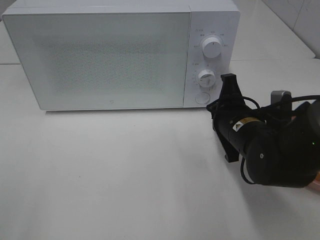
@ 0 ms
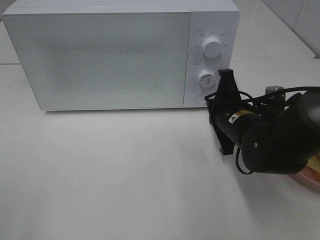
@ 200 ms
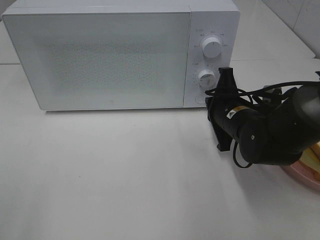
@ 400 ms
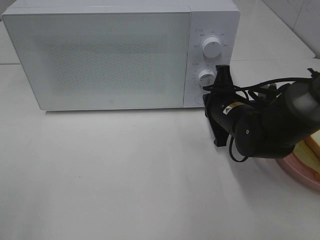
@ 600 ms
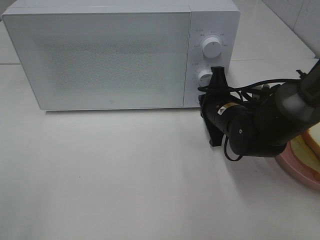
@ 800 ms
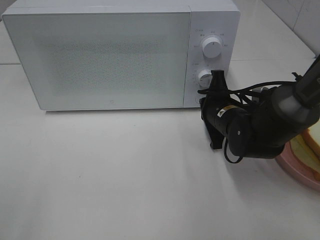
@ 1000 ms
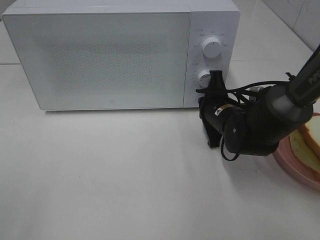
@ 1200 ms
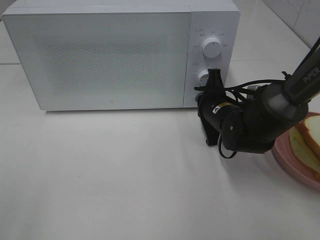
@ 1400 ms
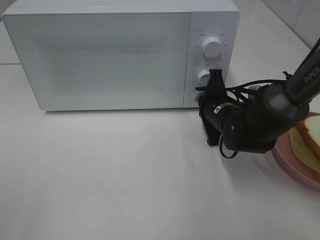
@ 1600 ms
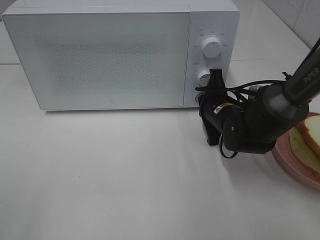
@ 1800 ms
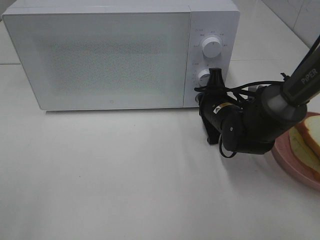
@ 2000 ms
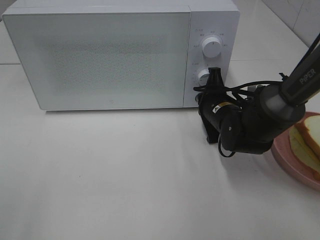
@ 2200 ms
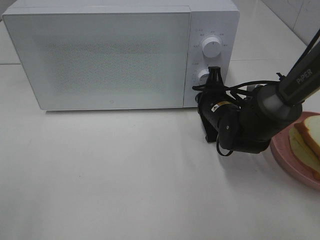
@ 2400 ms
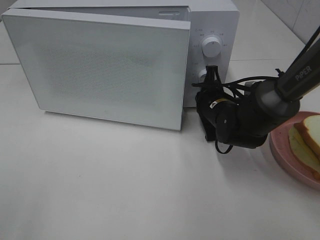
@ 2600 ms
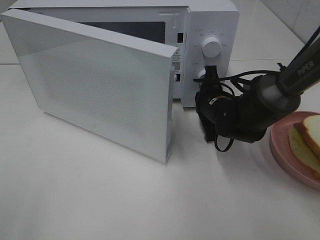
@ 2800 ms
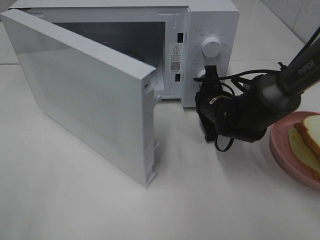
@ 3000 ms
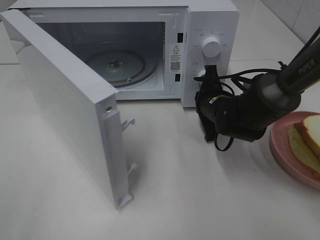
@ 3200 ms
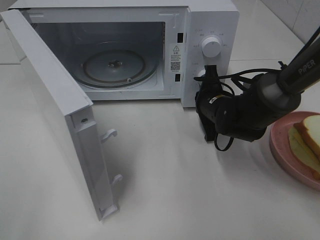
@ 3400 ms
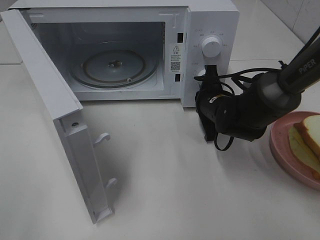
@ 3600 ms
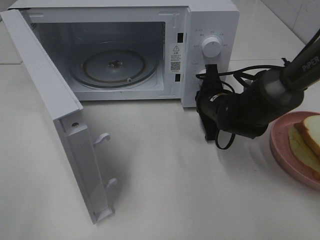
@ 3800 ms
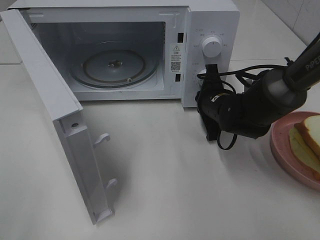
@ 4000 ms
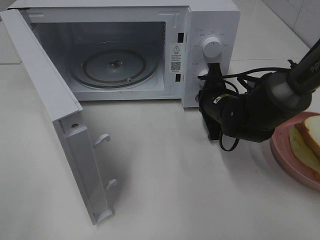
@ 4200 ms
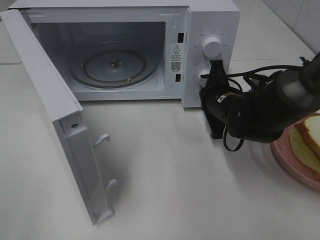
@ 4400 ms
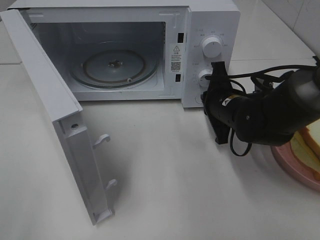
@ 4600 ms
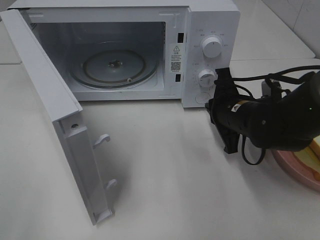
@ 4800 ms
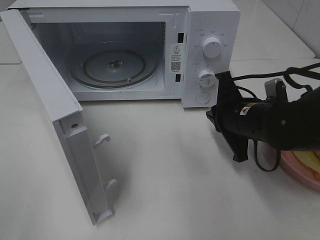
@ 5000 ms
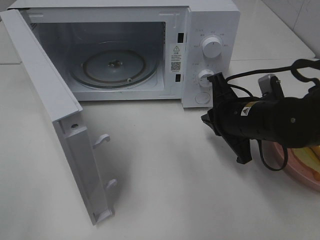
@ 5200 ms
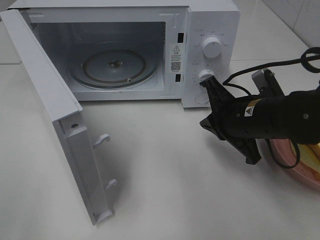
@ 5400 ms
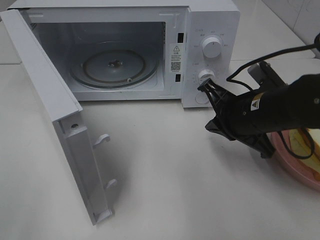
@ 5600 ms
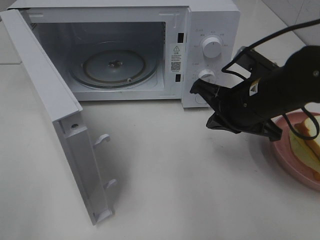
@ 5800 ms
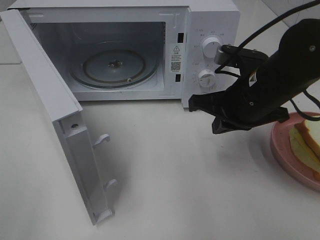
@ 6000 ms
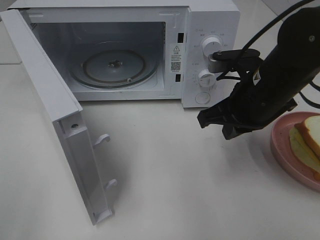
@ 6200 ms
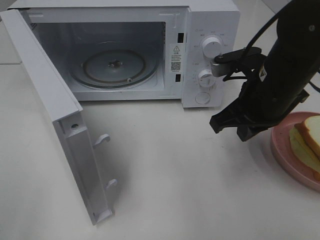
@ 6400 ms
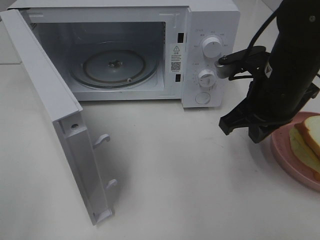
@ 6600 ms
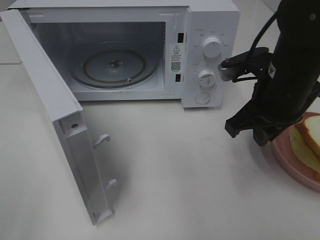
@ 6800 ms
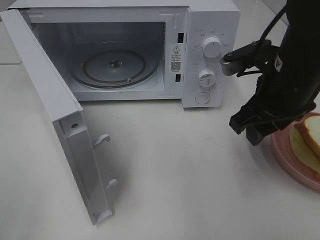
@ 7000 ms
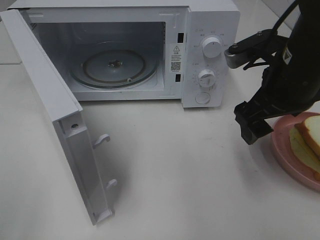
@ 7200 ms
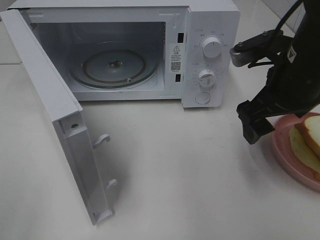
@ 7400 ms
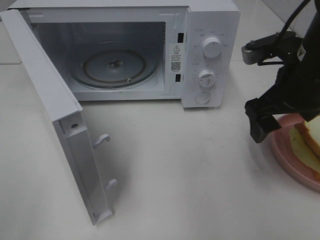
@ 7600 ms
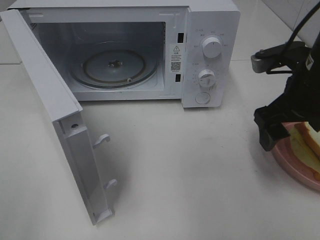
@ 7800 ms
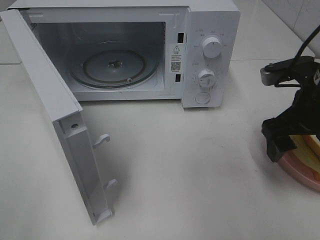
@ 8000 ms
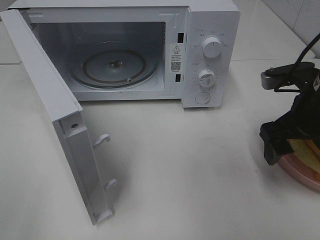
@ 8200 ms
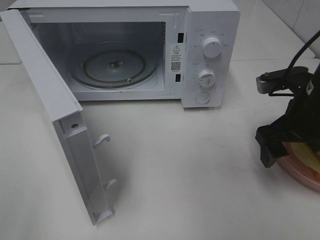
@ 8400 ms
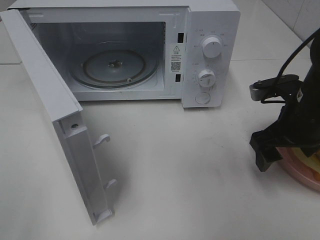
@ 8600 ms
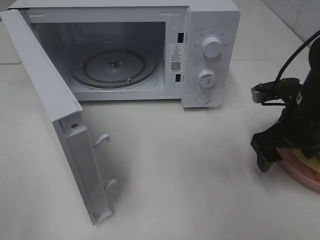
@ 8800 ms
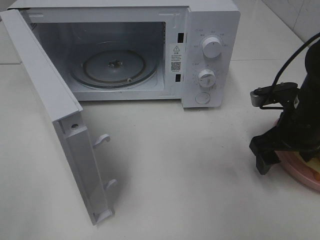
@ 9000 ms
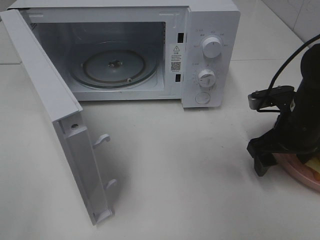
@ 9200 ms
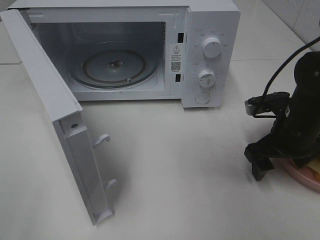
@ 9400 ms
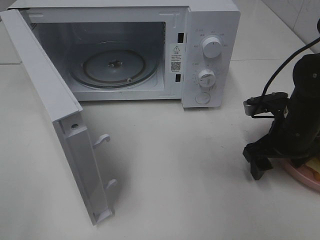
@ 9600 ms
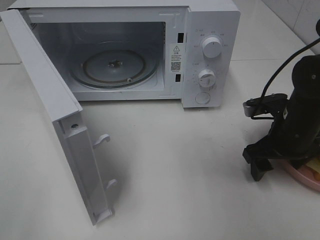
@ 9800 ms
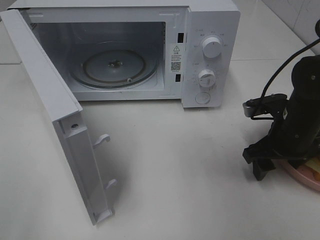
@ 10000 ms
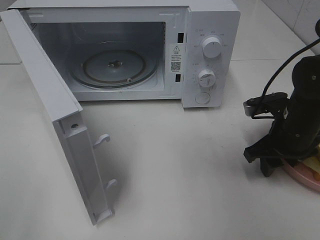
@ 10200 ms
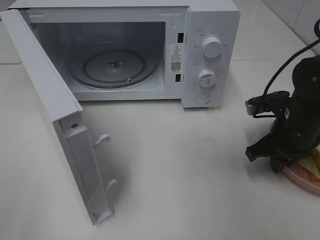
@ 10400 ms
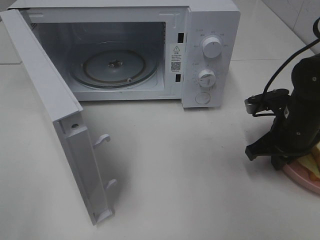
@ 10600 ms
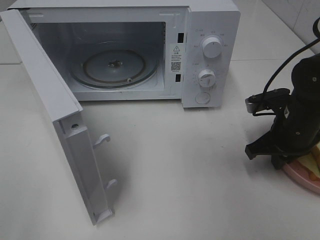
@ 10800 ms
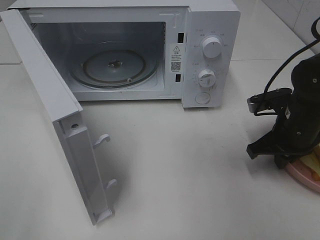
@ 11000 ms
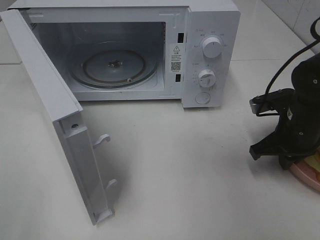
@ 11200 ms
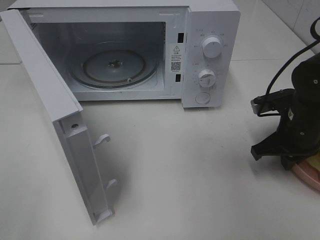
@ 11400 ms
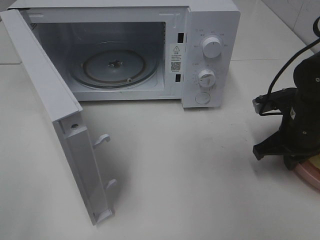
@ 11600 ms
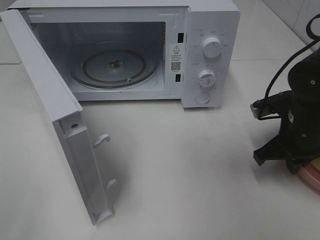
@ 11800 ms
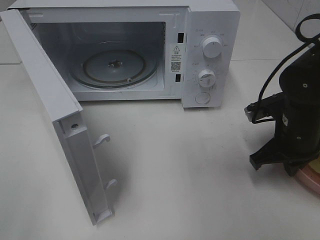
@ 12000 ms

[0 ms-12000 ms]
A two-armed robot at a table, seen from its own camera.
Task of the whole recording: Heat Sandwich.
Step, 0 ms to 4600 ms: Right hand: press the switch.
Step, 4800 ms to 10800 ms: Right hand: grab the plate with the sandwich.
0 ms to 1600 ms: The right gripper travels forward by roughly 10 cm.
4400 ms to 6000 ms: The right gripper moves upward and backward, some 10 cm.
6000 ms to 7600 ms: The right gripper goes roughly 5 cm to the right, and opens its fingers.
7600 ms to 9000 ms: The right gripper travels downward by approximately 10 cm.
9000 ms to 10400 ms: The right gripper closes up.
10400 ms to 12000 ms: The grippers make only small movements.

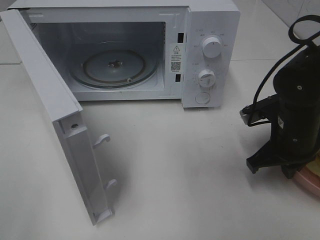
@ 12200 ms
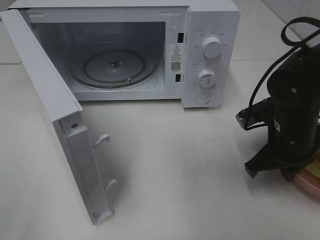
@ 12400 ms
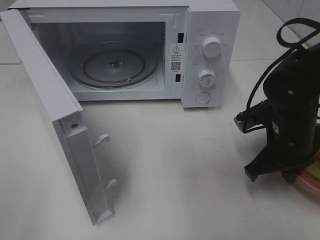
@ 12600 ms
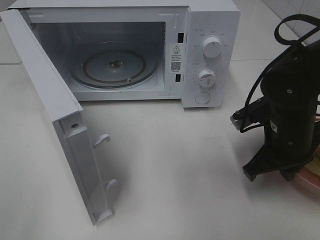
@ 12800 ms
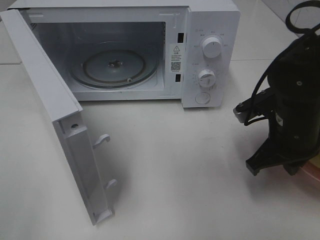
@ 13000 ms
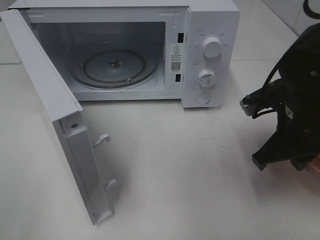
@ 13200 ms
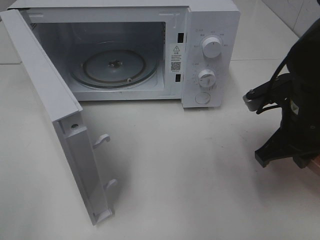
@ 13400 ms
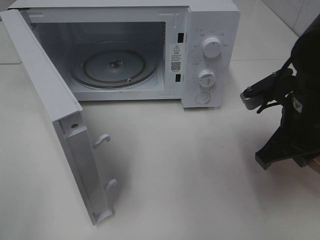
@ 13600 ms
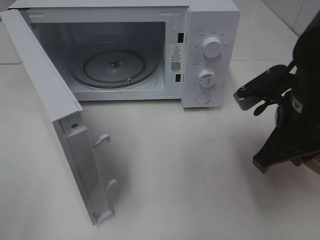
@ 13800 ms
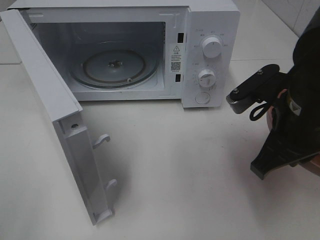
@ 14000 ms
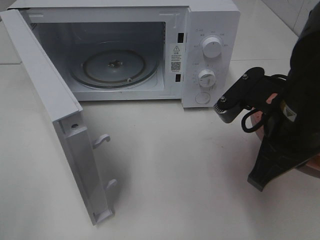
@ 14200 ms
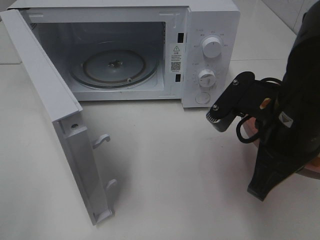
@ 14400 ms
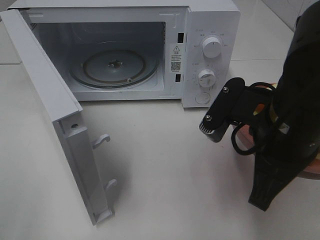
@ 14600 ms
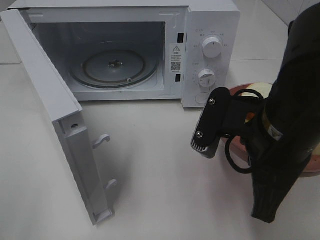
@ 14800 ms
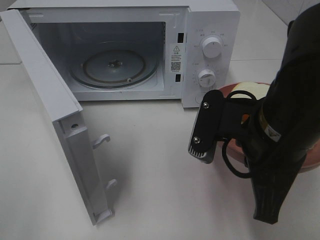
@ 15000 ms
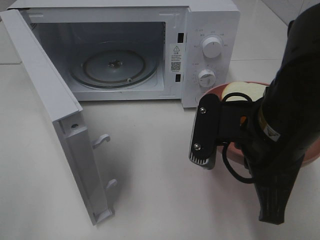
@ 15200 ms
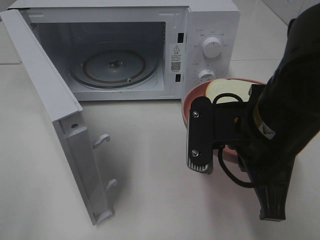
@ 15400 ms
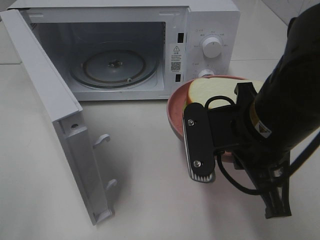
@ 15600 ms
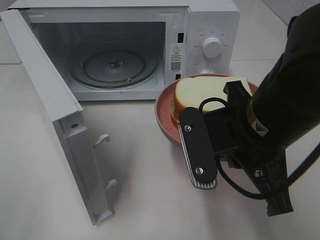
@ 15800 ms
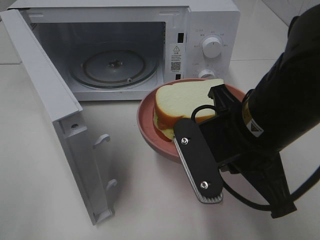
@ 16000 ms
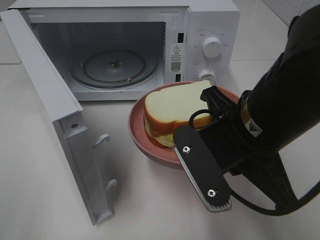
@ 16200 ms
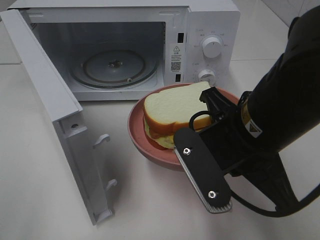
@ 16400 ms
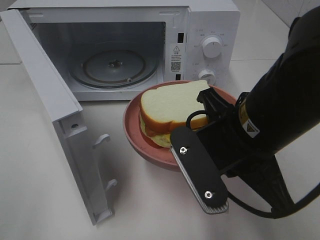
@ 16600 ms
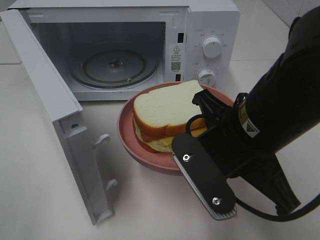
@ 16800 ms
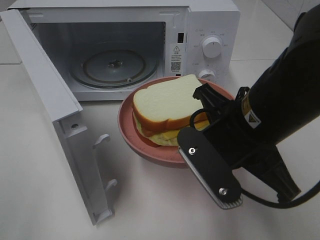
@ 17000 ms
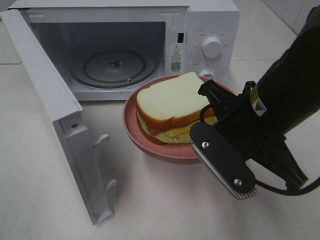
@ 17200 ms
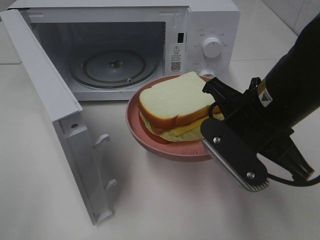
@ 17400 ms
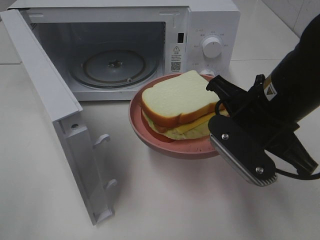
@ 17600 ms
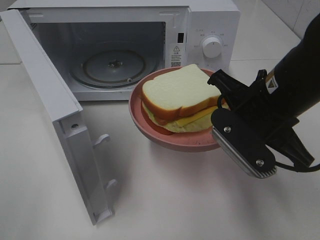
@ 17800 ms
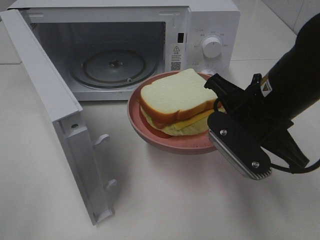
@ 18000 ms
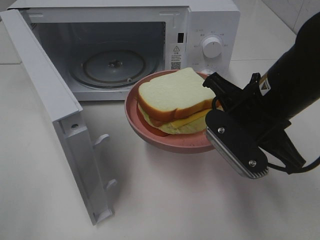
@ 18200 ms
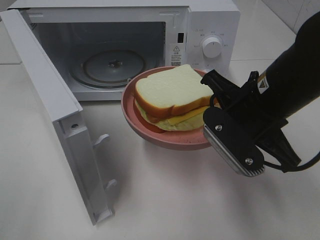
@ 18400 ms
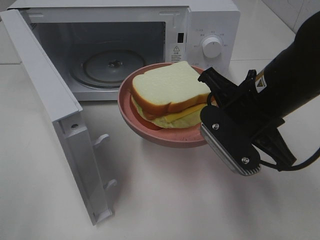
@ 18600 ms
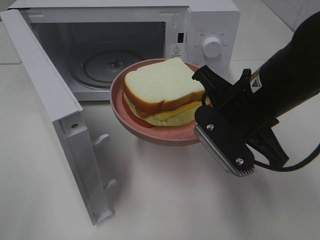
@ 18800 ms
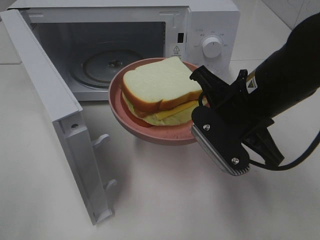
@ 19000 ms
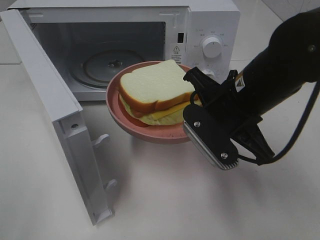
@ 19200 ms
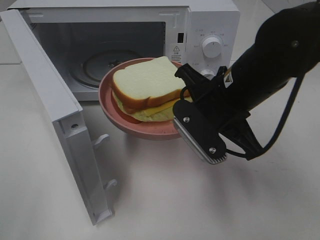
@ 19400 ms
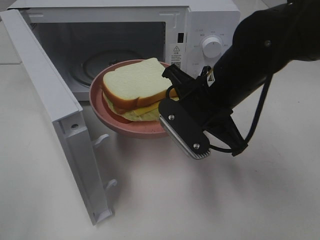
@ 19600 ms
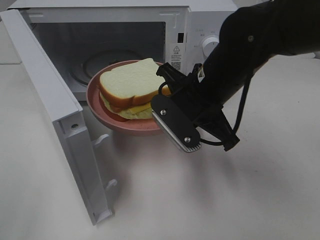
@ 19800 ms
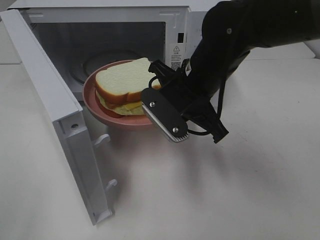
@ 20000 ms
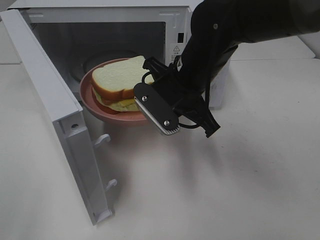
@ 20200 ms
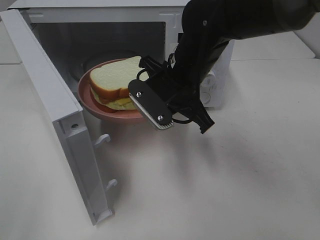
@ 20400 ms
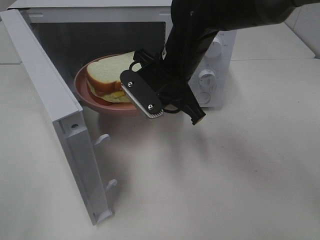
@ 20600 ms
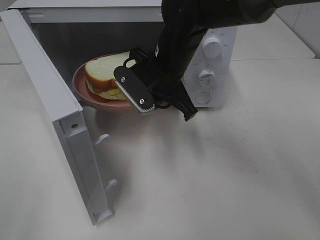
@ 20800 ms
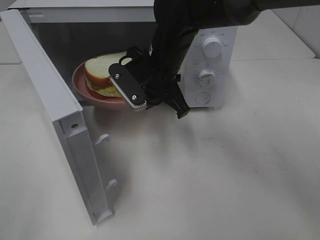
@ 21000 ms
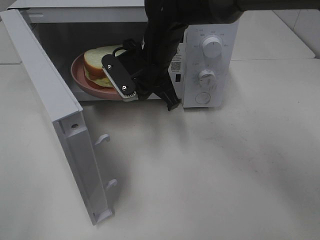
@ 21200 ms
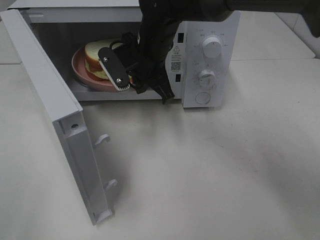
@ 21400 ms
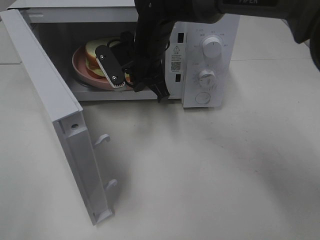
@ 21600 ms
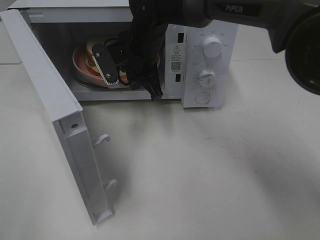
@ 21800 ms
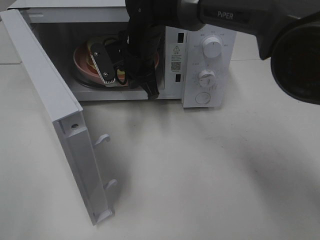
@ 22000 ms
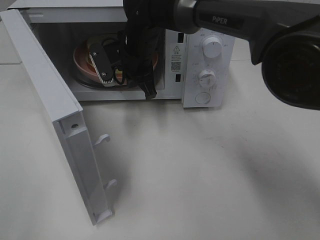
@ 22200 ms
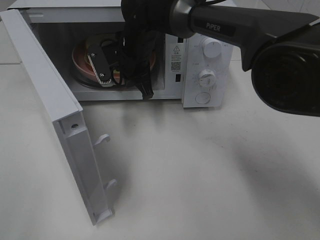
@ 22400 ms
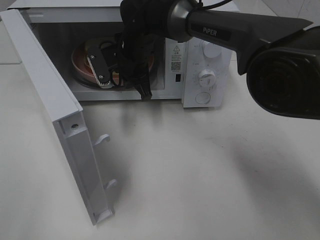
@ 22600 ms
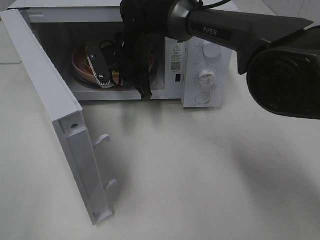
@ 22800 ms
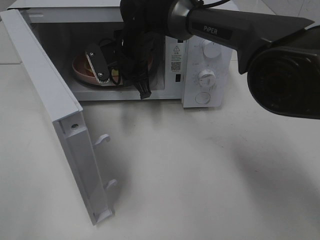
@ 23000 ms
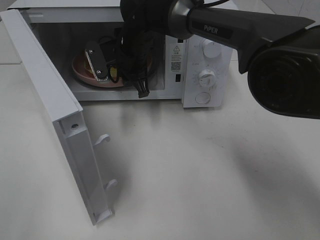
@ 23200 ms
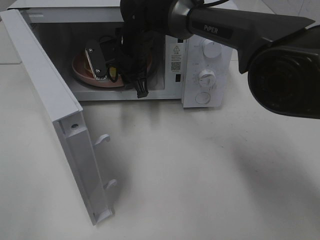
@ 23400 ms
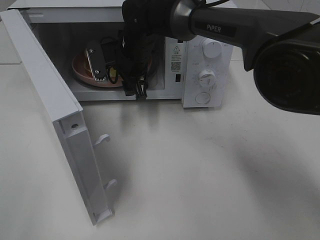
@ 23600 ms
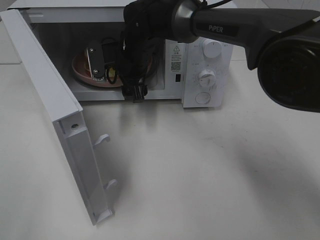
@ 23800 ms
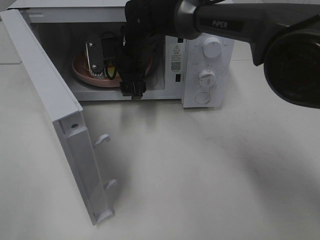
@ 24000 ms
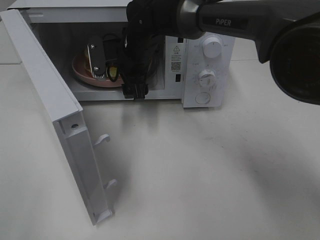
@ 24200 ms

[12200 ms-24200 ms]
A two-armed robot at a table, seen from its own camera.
Task of the whole recording: Heat Sandwich.
Step, 12200 ms to 24000 ms: Right hand: place the plate in the microwave.
12200 ms to 13800 ms: The right gripper travels upward and backward by some 10 cm.
13800 ms to 15200 ms: The right gripper shifts approximately 5 cm to the left.
16600 ms to 18200 ms: The right gripper goes approximately 5 cm forward.
18200 ms to 19800 ms: The right gripper travels to the left and forward by about 10 cm.
19800 ms to 21200 ms: The right gripper travels forward and to the left by some 15 cm.
21200 ms to 22600 ms: The right gripper moves forward, roughly 5 cm.
22600 ms to 24200 ms: The right gripper opens its fingers.
